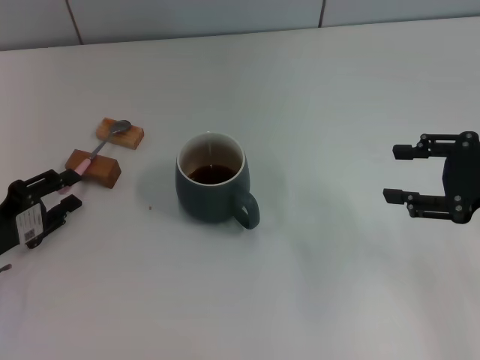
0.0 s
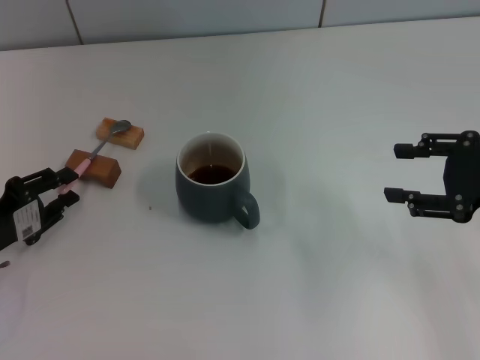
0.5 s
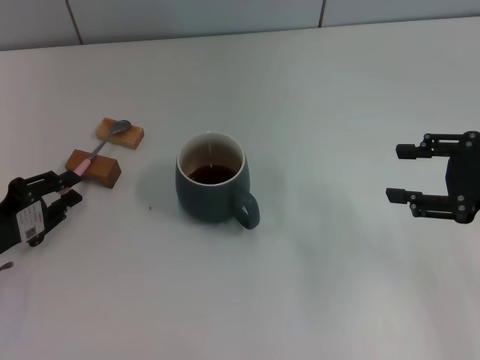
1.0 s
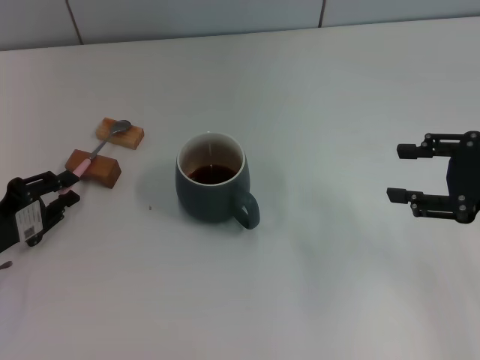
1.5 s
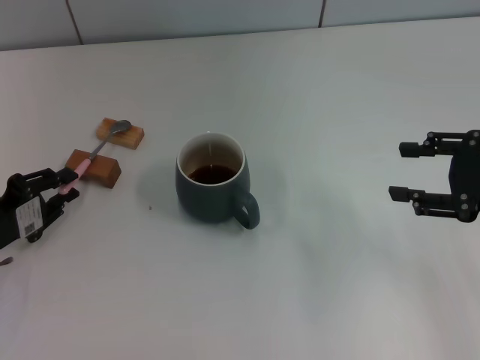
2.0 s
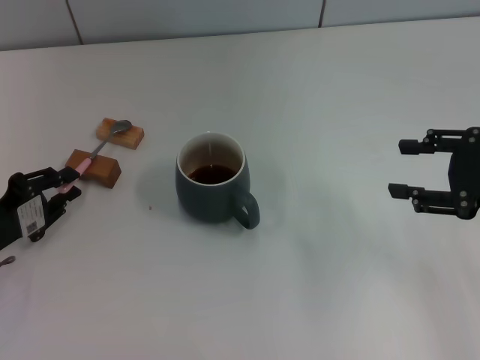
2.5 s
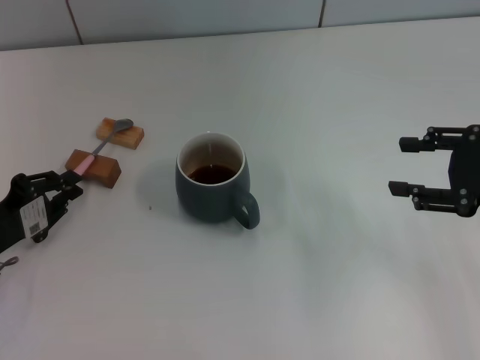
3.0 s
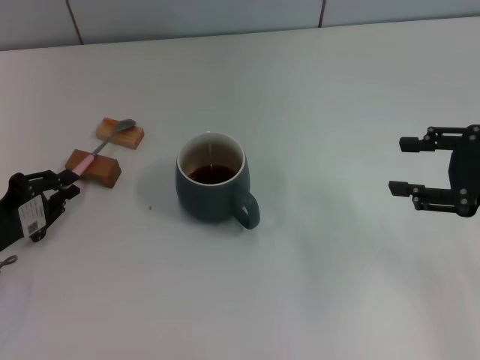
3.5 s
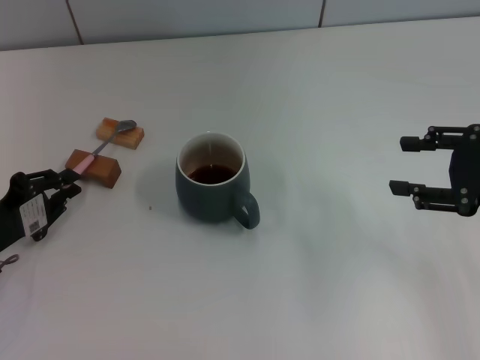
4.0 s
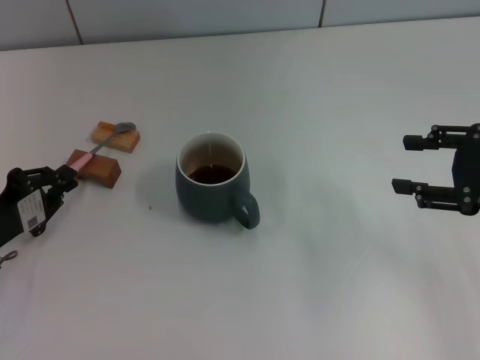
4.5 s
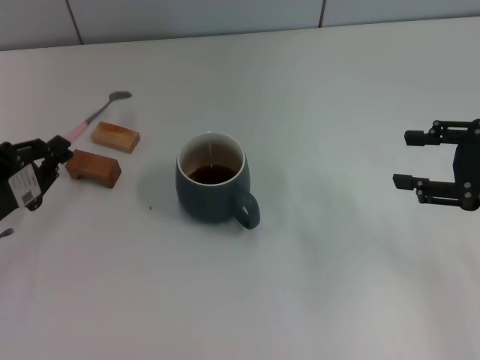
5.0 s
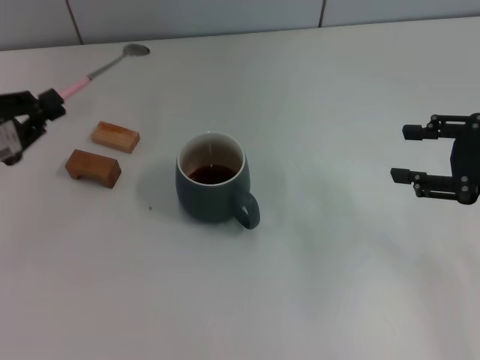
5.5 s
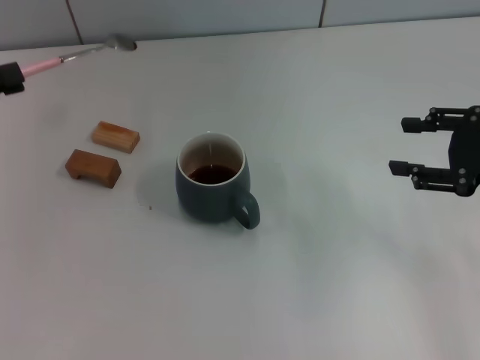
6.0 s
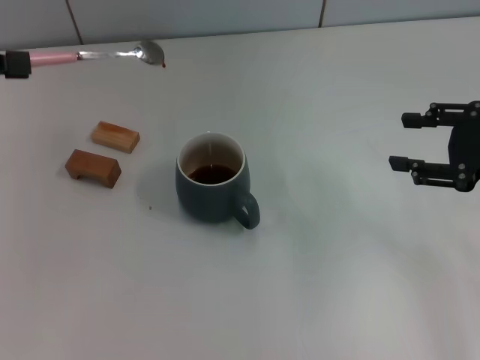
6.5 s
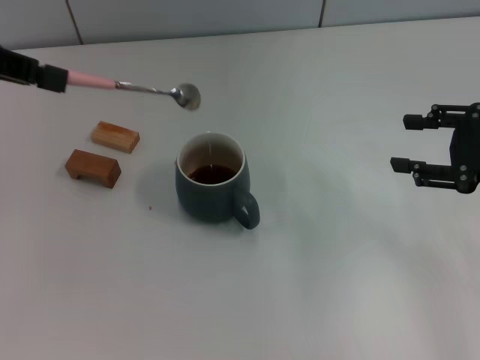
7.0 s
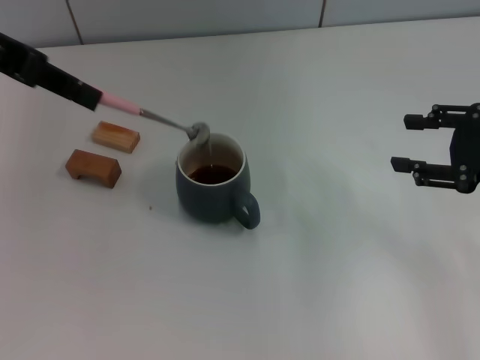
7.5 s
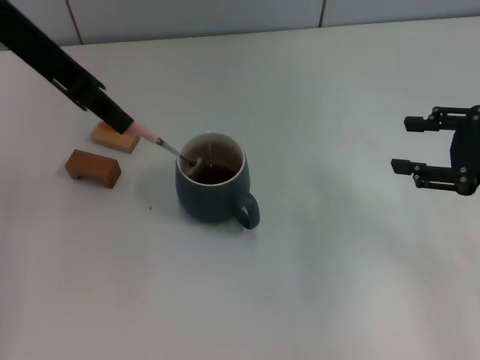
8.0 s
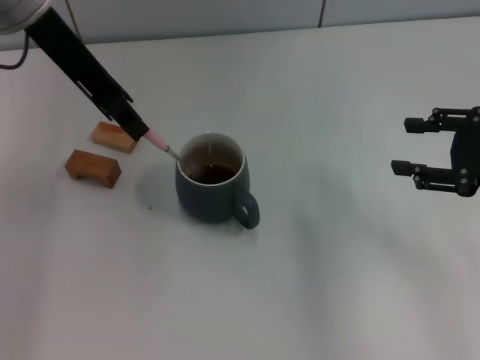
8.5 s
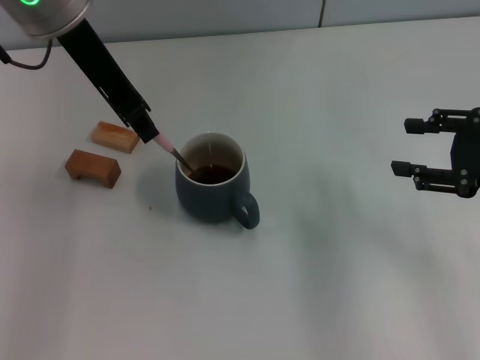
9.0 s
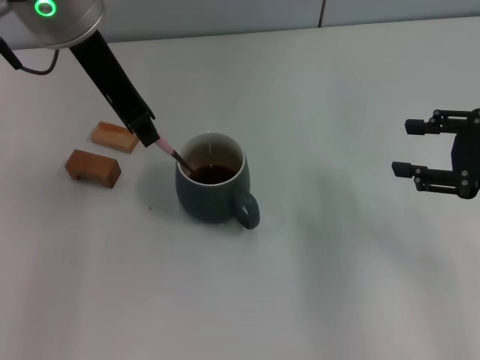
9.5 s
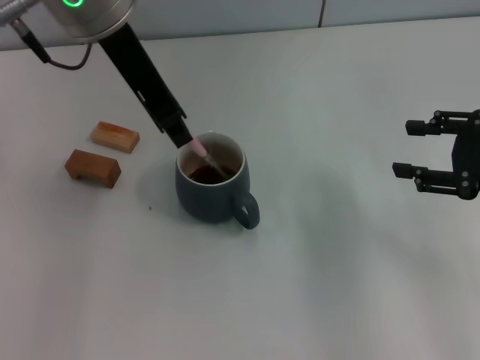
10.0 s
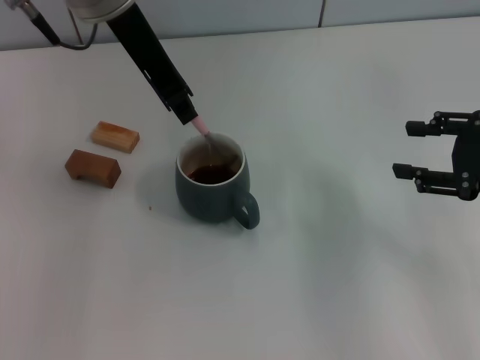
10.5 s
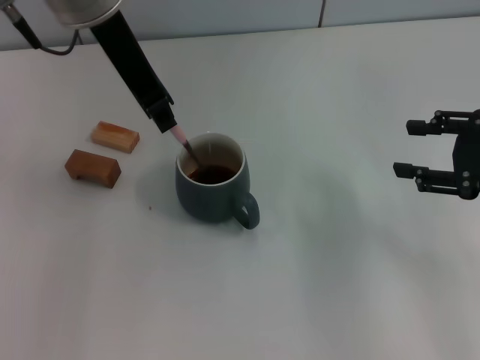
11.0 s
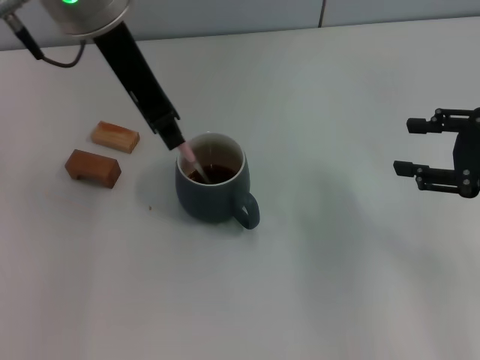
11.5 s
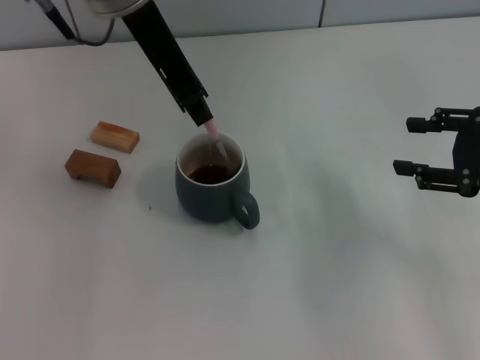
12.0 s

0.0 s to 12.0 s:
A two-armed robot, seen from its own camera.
Task of the whole recording: Move the grey cup to the center, lift the pink spoon, stir it three times in the cup, and put the spoon into the cup.
Step, 0.0 to 4.5 s: Pick up the spoon with the left gripper.
0.0 to 2.0 s: The left gripper closes.
2.0 to 4.0 s: Neither gripper changes place.
4.0 to 6.0 s: The left gripper travels upward by about 15 cm.
6.0 to 8.0 s: The left gripper shifts approximately 20 cm to the right, upward and forward.
8.0 to 10.0 s: The left gripper shifts approximately 10 cm to the right.
10.0 to 12.0 s: The grippers make only small movements.

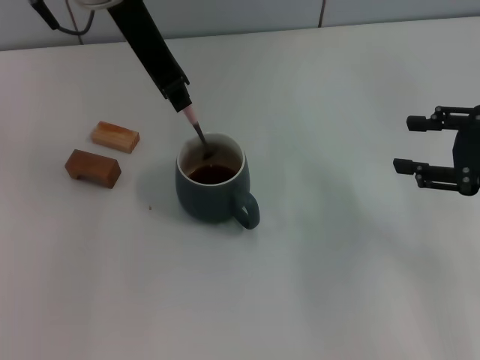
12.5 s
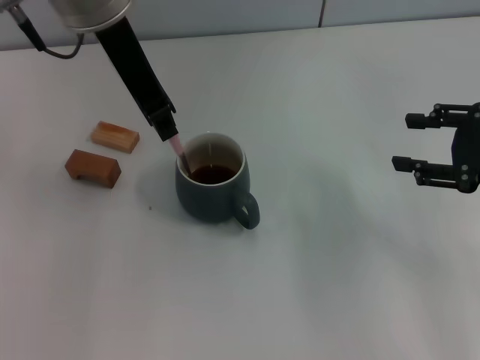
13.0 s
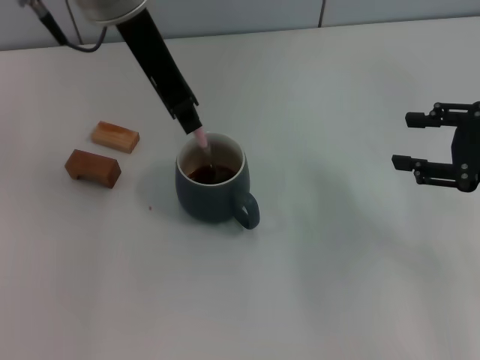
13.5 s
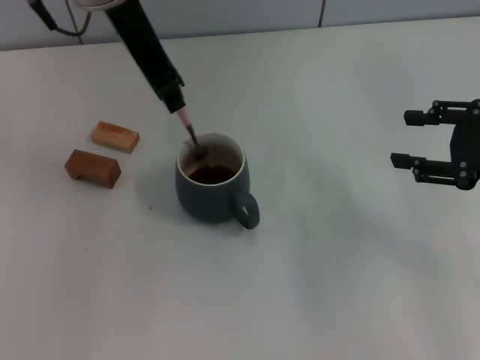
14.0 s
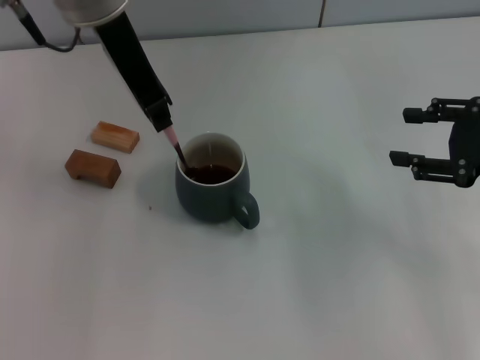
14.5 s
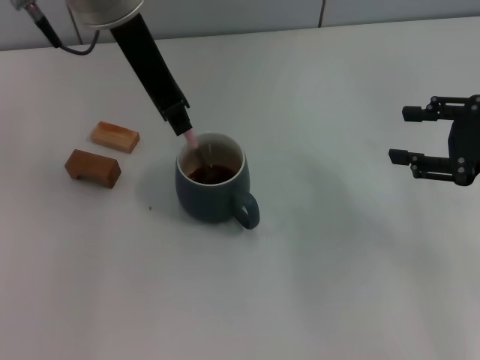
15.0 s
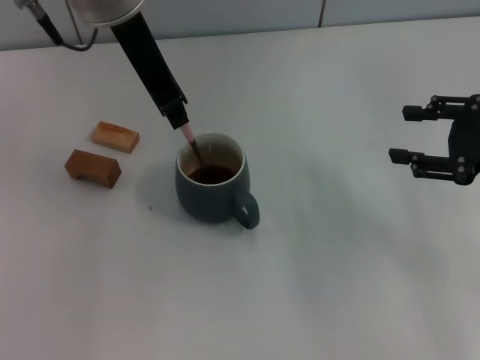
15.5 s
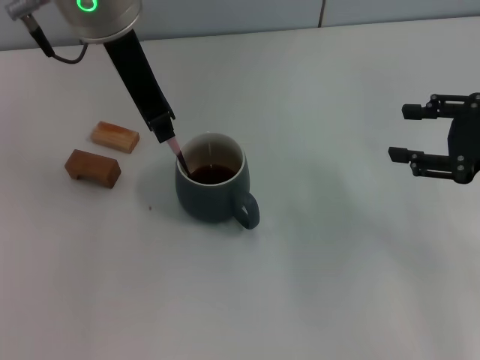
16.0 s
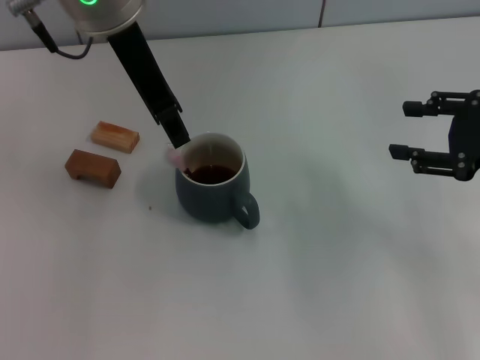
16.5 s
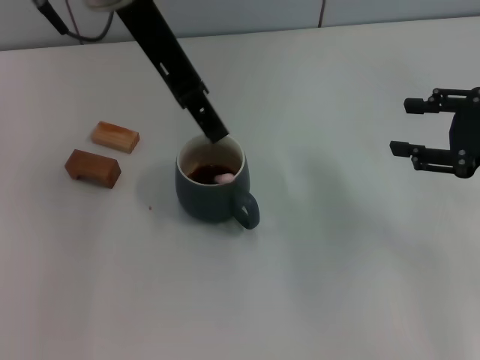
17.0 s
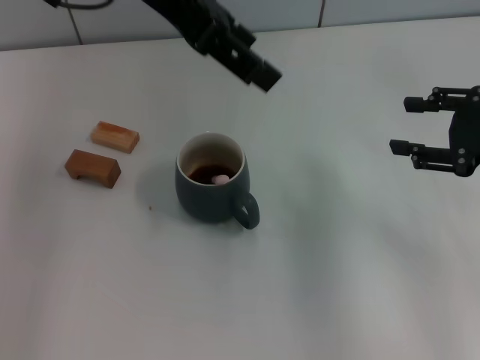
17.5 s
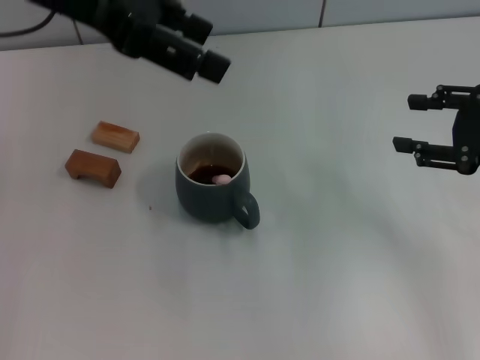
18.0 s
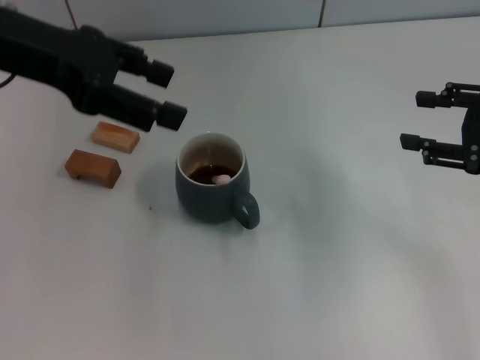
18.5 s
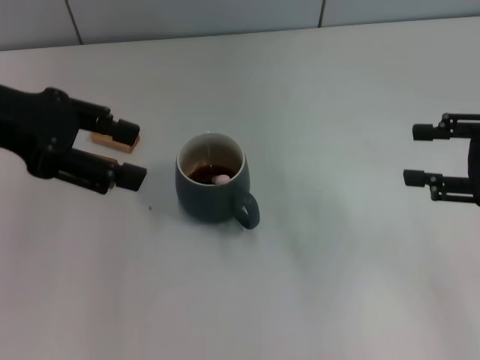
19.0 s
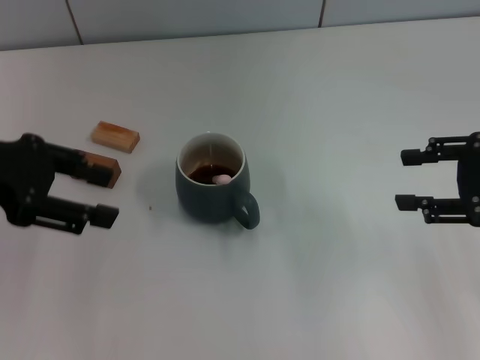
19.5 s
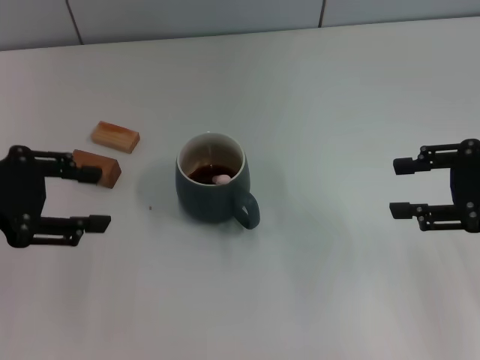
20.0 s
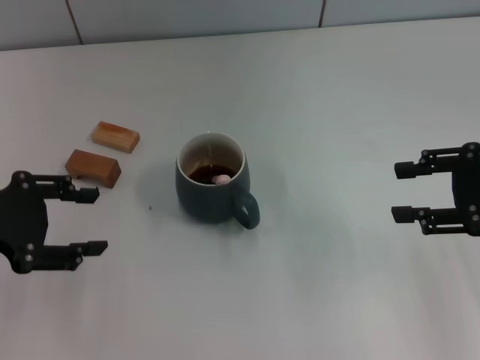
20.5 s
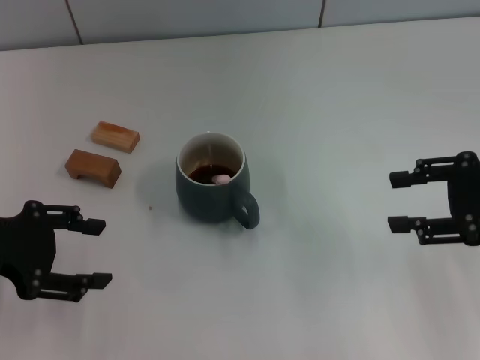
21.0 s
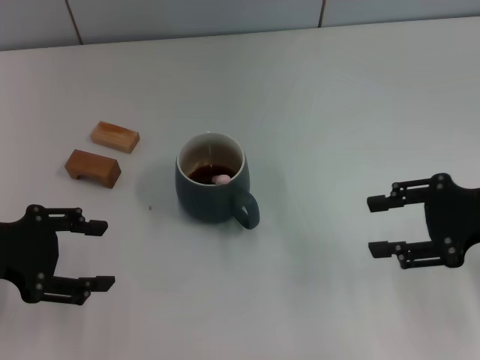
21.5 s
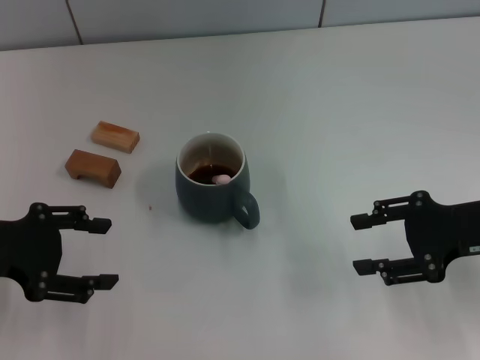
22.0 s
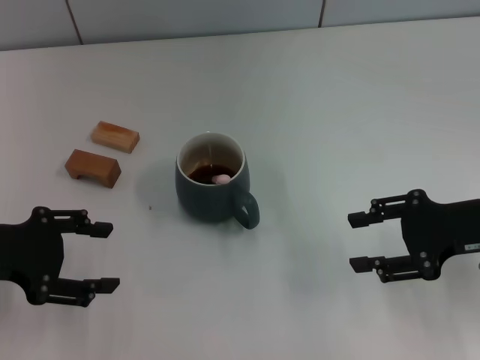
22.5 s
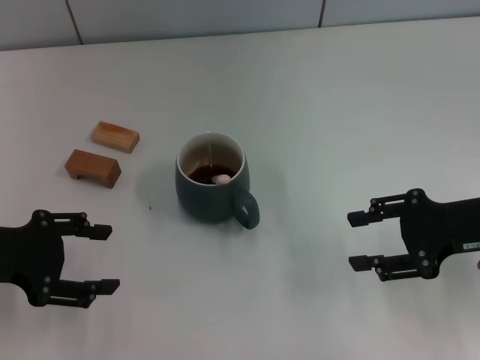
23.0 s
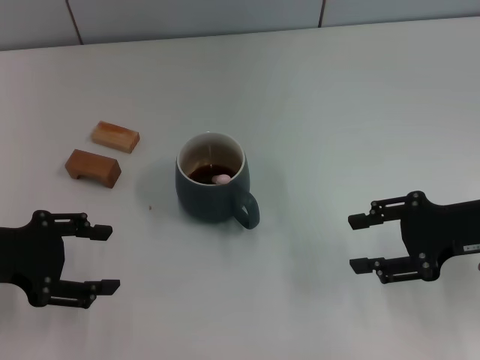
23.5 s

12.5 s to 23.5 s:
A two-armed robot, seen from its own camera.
Task of the whole recording: Move the grey cup to the center, lift the pink spoon, stir it three times in the cup, and put the spoon into the cup.
Step, 12.5 to 16.5 s: Stir the coffee in the cup with the left gripper.
12.5 to 14.5 s: The grippers move only a little.
14.5 to 16.0 s: The two grippers keep their place.
16.0 to 18.0 s: The left gripper moves to the left, roughly 10 cm, and opens.
18.0 to 20.0 s: The left gripper goes roughly 20 cm downward, to the left and backward.
20.0 to 21.5 s: The left gripper moves about 5 cm.
21.5 to 23.5 s: The grippers stay close to where they were, moving slightly.

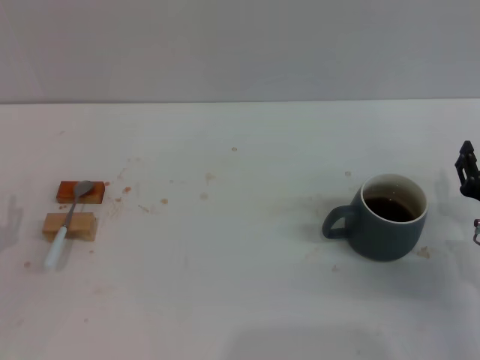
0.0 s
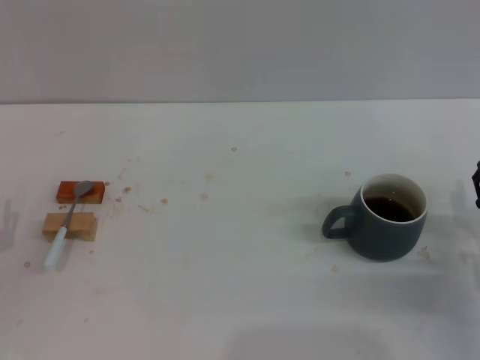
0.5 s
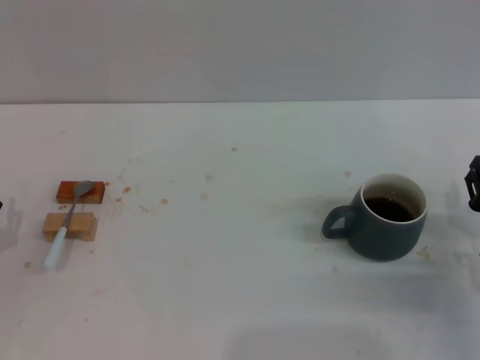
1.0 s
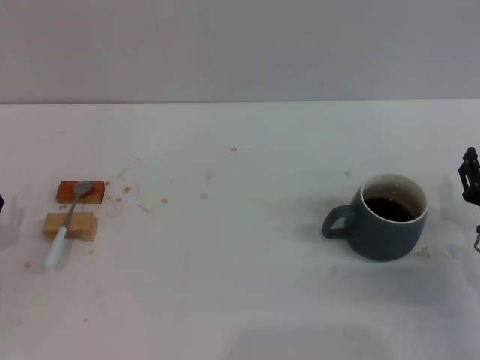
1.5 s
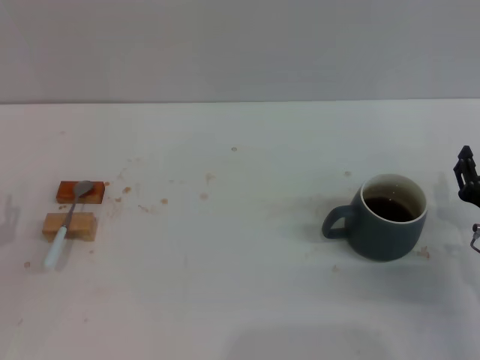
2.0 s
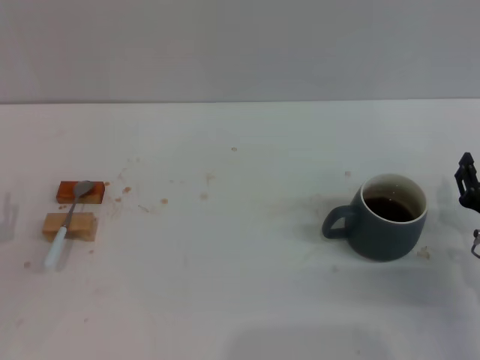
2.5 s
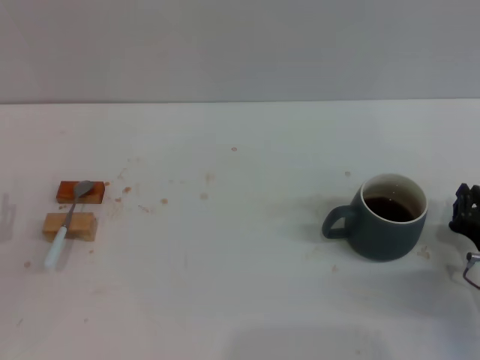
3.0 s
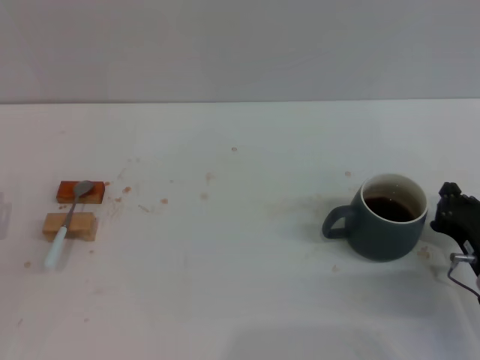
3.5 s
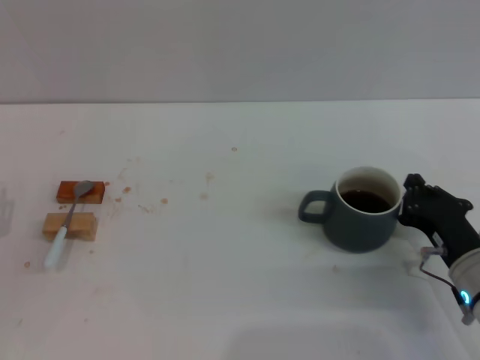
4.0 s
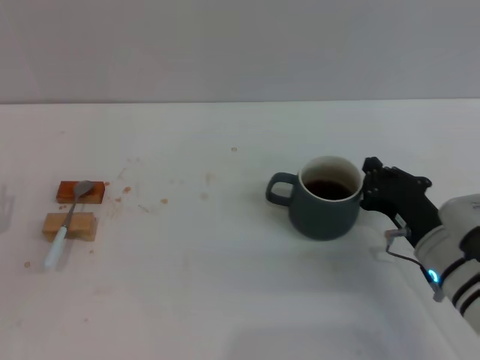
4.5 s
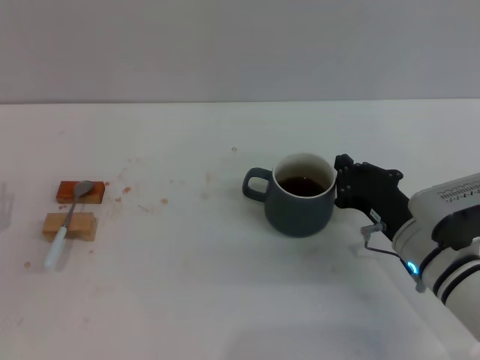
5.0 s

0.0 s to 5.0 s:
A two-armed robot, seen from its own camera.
Task of the whole recording: Move the grey cup to the center, lift the blue spoon, stir it three times in the cup, and put the spoon into the cup.
2.5 to 5.0 s: The right gripper goes roughly 10 cm to the left, and closes up.
